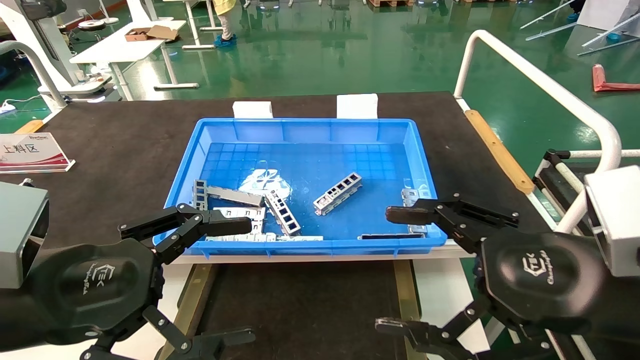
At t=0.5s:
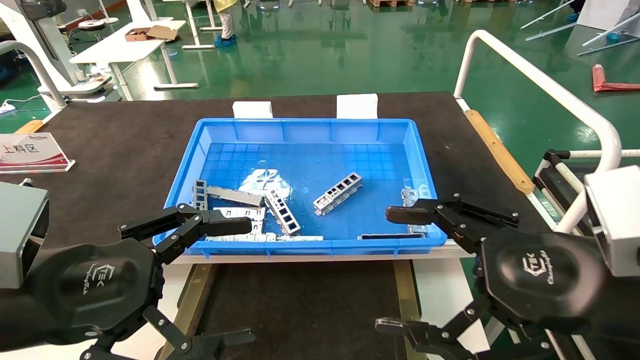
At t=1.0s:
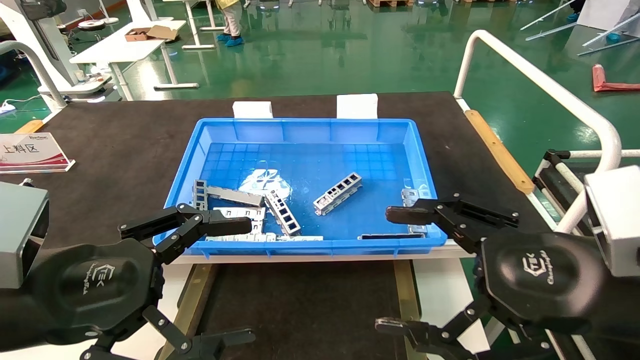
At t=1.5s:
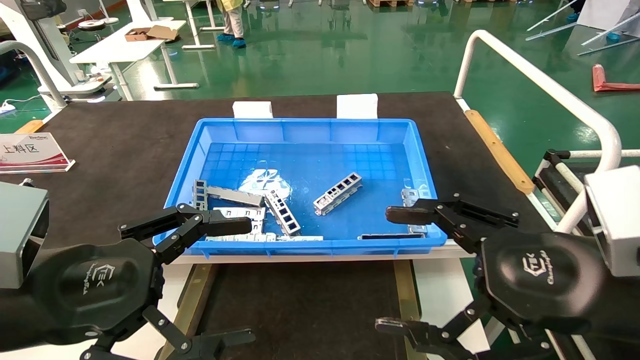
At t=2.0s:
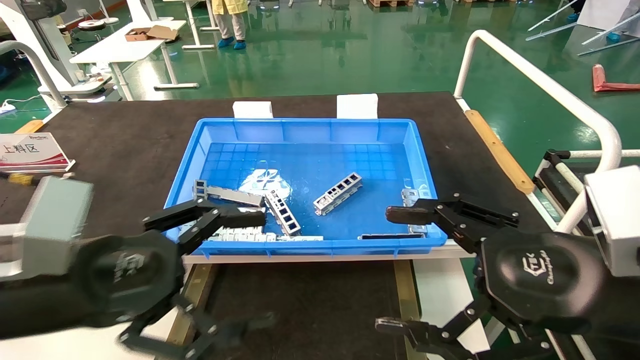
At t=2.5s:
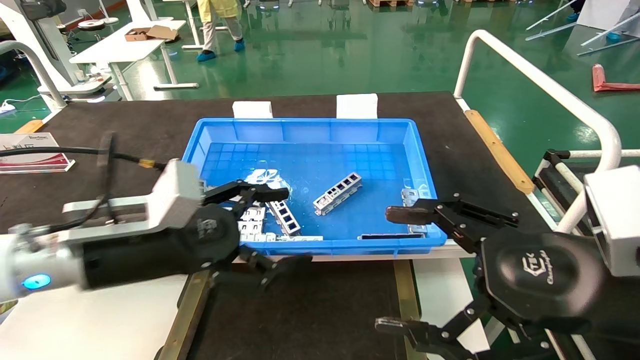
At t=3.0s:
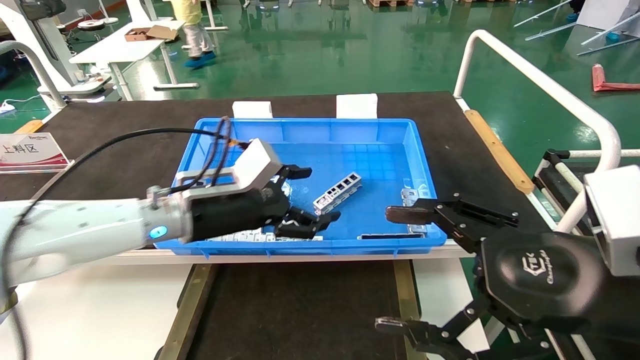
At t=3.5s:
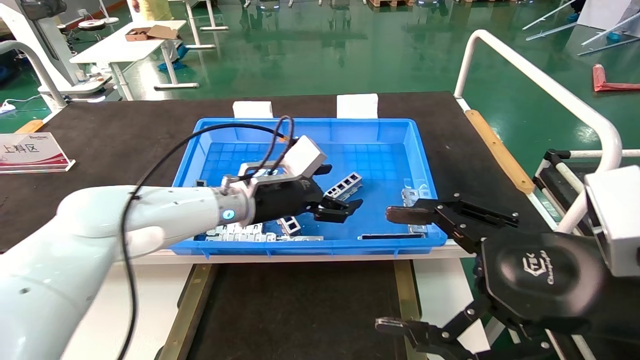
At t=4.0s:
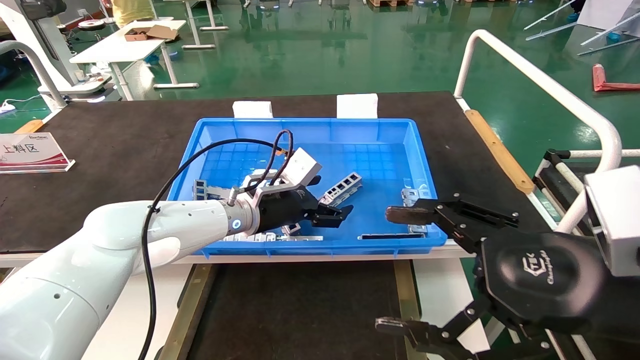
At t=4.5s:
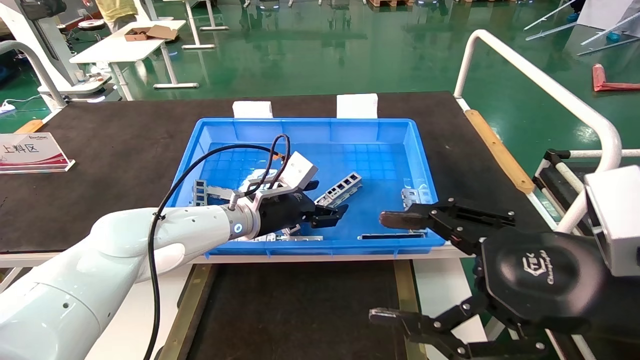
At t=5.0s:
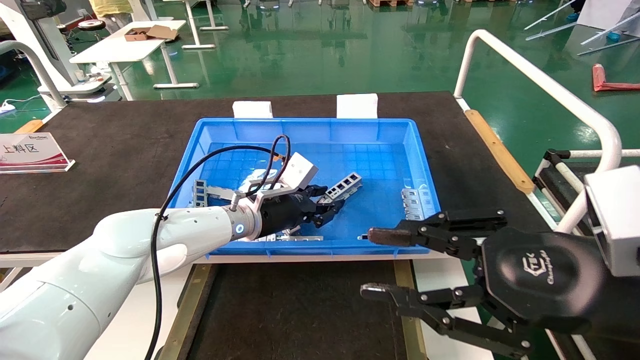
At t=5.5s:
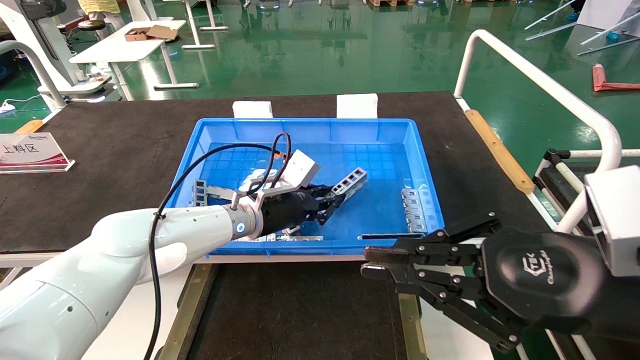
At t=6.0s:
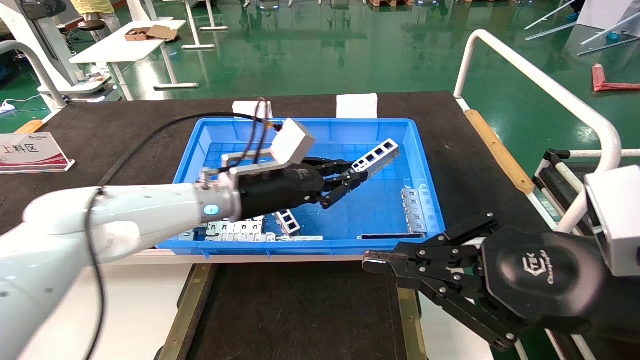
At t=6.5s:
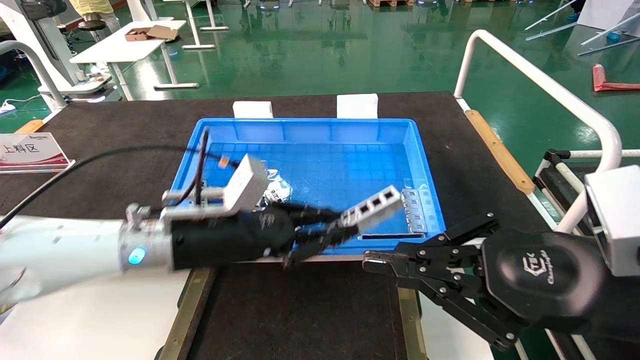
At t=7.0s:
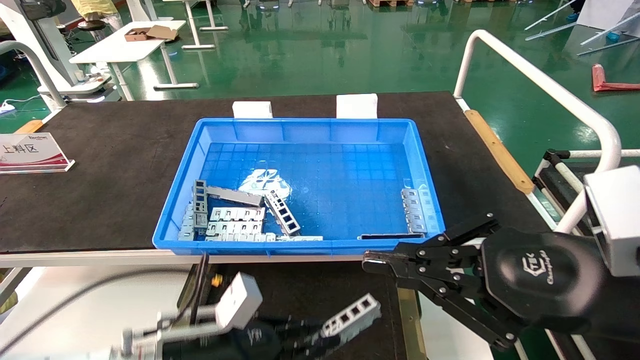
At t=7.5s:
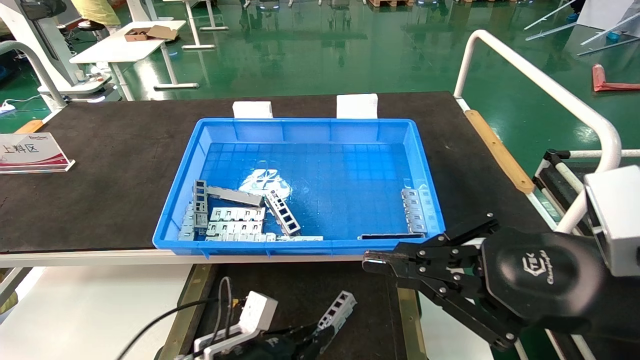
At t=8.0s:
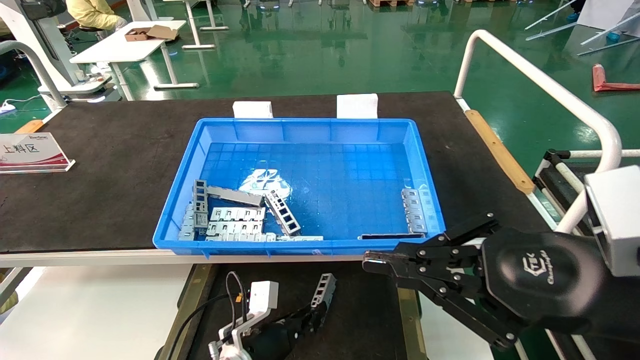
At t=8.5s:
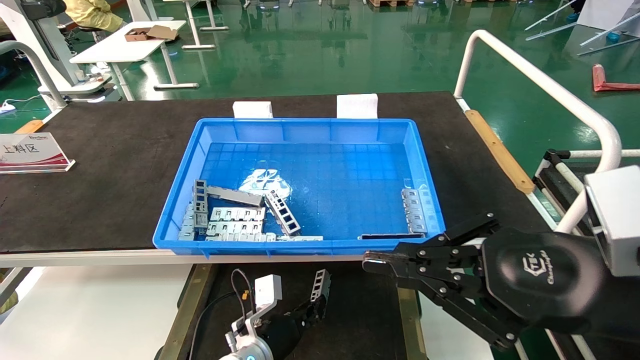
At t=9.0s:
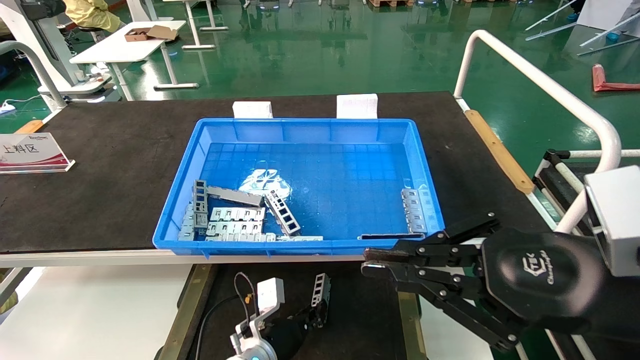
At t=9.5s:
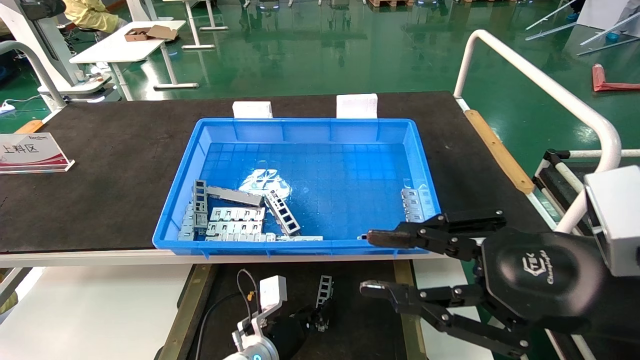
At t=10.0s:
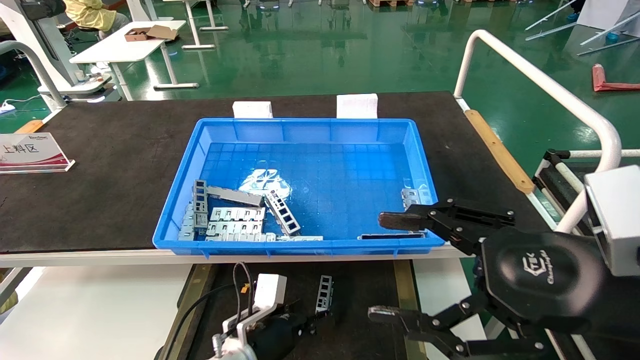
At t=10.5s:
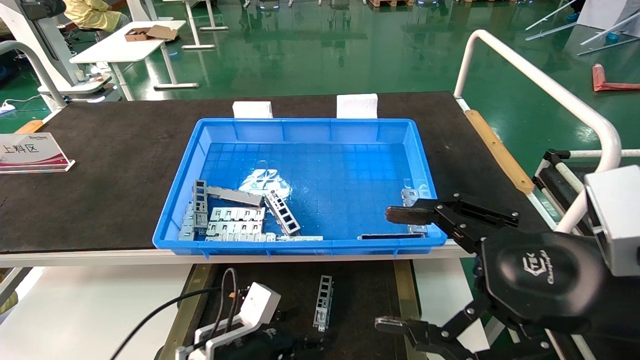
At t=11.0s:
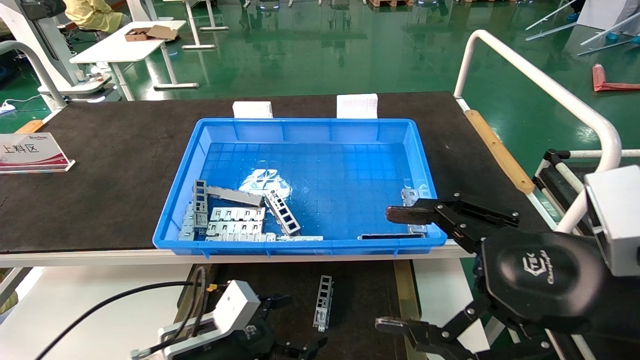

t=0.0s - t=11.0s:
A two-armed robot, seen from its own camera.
Task of the whole recording: Grasp the part with one hand and place it on the black container.
Step, t=2.0s - t=5.5s: Pick up the front USB bracket from the feeding area.
Step, t=6.0s - t=9.5s: Place the front USB bracket into the box.
t=0.0s - t=2.0s: The grippers stay close to where they were, moving slightly.
t=2.0s - t=3.5s: The left gripper goes roughly 30 cm forward and to the right.
t=3.5s - t=5.5s: The left gripper closes up, while the right gripper closes its fingers.
t=5.5s - t=7.5s: The left gripper shifts some 25 cm downward and backward.
t=7.5s - t=9.0s: The left gripper shifts some 10 cm forward and to the right.
t=9.0s - t=11.0s: The right gripper opens its fingers, while the left gripper goes roughly 15 cm to the left, backward and upward, and opens its fingers.
